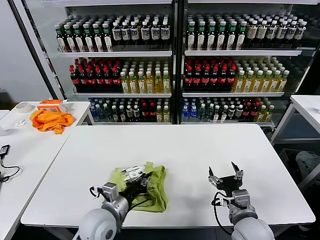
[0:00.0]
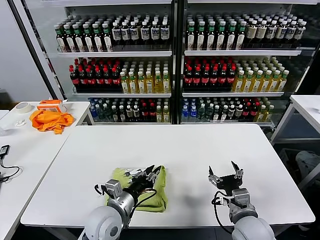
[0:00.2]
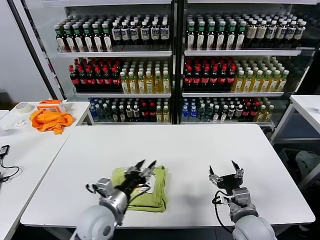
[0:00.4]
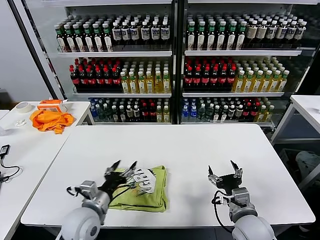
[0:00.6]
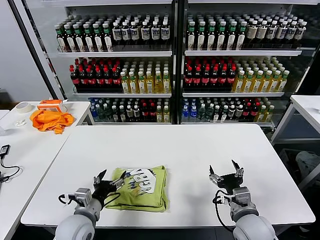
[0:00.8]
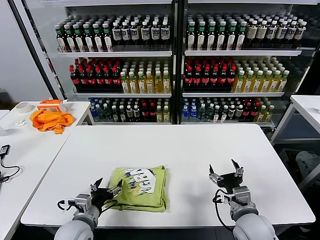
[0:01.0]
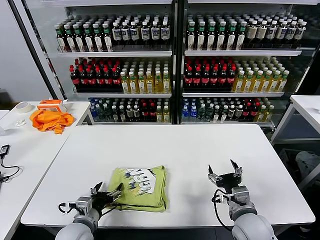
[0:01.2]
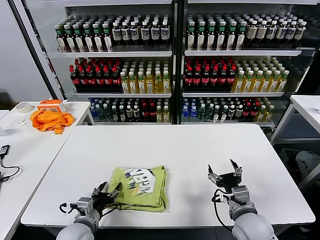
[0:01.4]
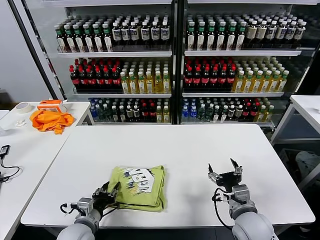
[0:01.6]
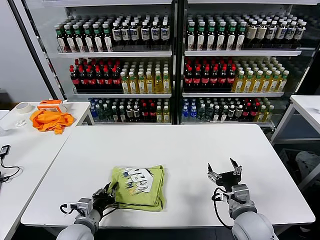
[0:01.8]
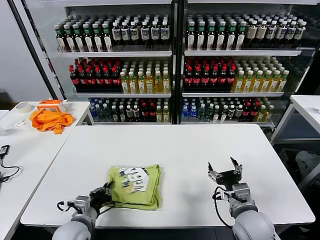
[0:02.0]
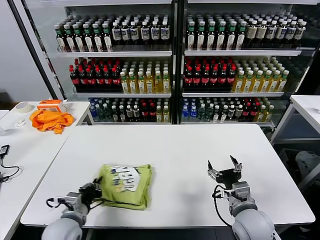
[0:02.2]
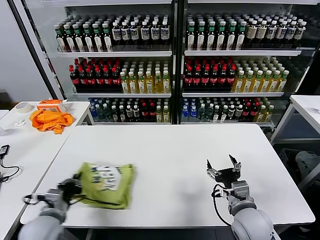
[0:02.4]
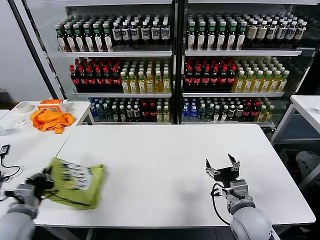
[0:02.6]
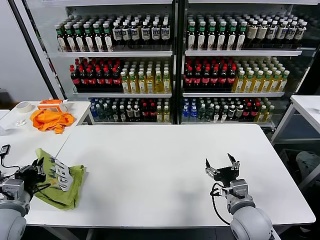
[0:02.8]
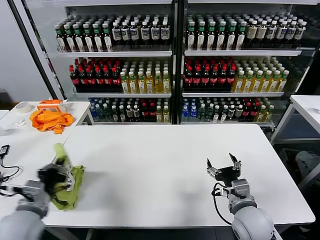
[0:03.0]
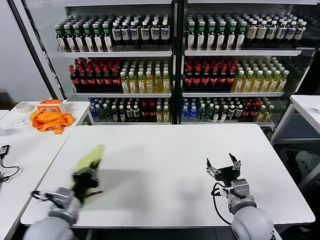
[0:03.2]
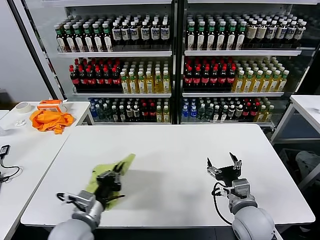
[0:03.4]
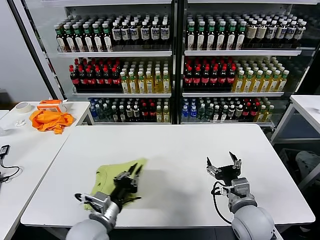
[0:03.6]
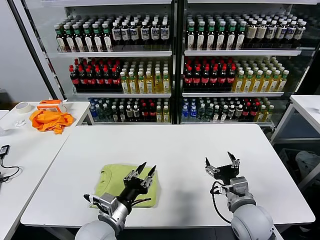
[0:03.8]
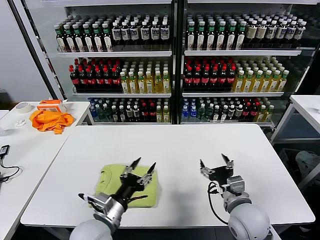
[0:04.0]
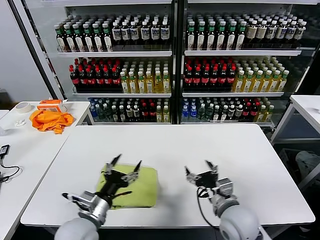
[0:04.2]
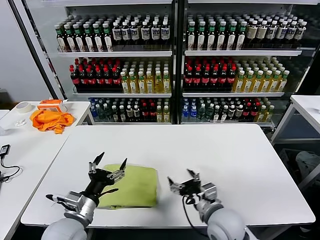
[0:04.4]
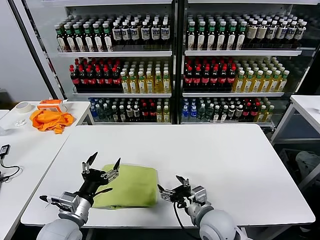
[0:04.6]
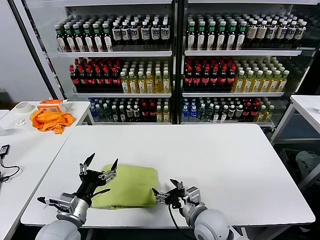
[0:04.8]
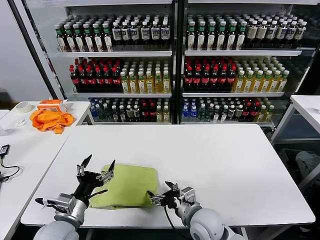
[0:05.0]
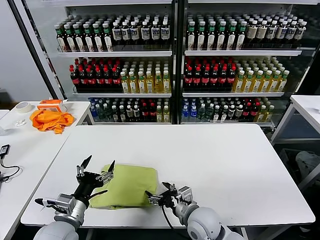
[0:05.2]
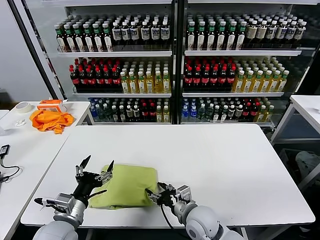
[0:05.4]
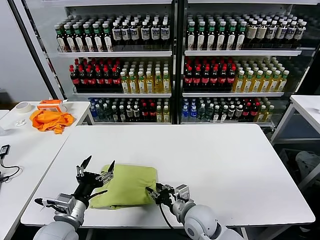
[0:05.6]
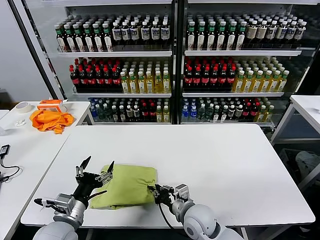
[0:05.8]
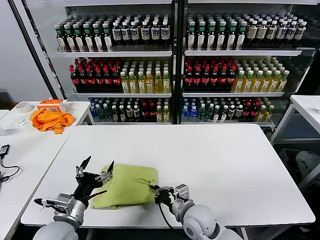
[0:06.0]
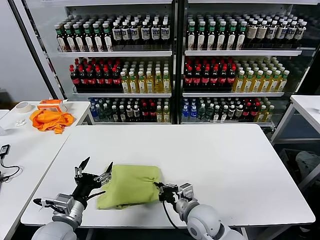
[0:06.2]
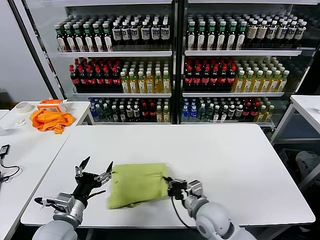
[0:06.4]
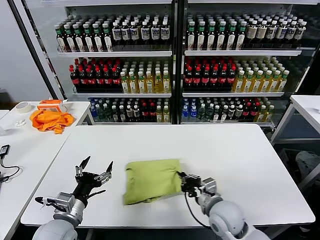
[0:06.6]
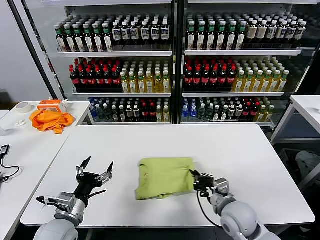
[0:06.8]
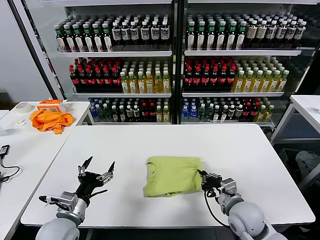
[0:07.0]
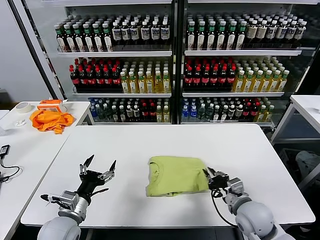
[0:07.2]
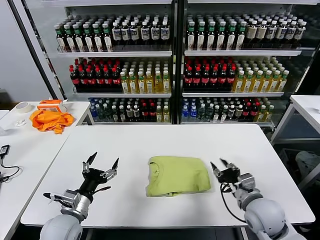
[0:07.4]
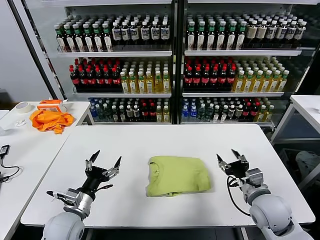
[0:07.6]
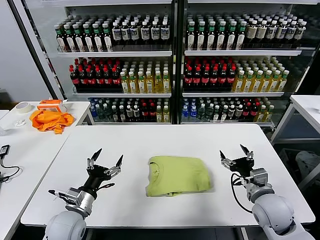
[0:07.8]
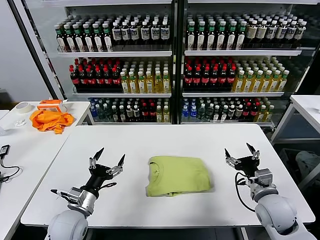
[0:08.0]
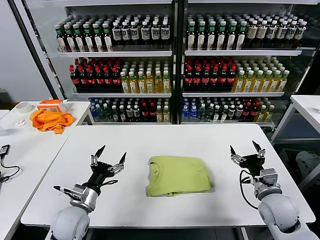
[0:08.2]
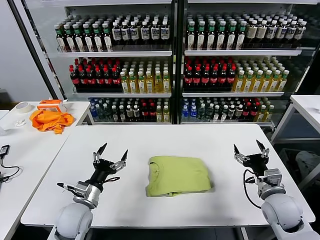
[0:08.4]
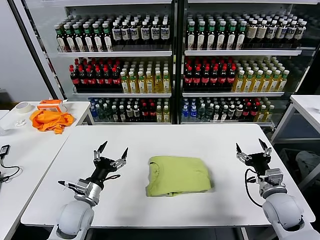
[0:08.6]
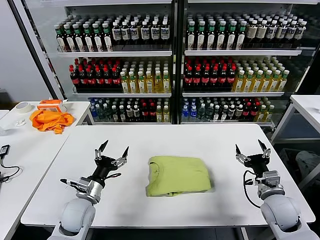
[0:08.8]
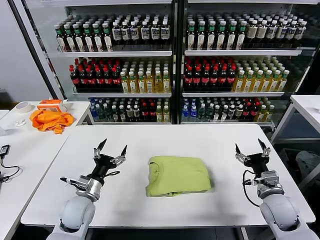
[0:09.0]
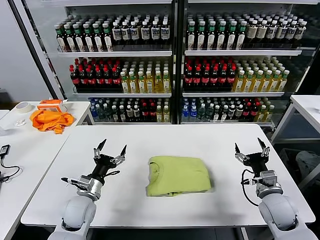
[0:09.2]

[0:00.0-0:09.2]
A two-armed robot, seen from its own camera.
Task of the whole recording: fold and organize the clothes.
Step, 0:00.6 to 0:03.6: Flip the folded clothes over with left gripper.
Step, 0:03.8 to 0:07.2: Drag the clothes to the center of the table.
0:00.0 to 0:01.6: The left gripper is displaced to the left and downward by approximately 10 cm, and opens up.
0:01.6 to 0:03.0: The left gripper moves upward and to the left, approximately 15 cm, and closes its fingers.
0:03.0 to 0:04.6: The left gripper shifts about 10 cm to the right, and opens up. Meanwhile the right gripper is displaced to the left by roughly 10 cm.
0:04.6 to 0:06.2: The right gripper ends up some 5 cm from where it was, and closes its fingers.
0:06.2 to 0:07.6: The right gripper shifts roughly 20 cm to the right, and opens its fingers.
0:07.6 to 0:09.2: The left gripper heads forward, covering approximately 5 cm, while the right gripper shifts roughly 5 cm to the right.
